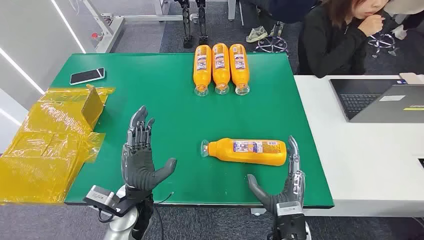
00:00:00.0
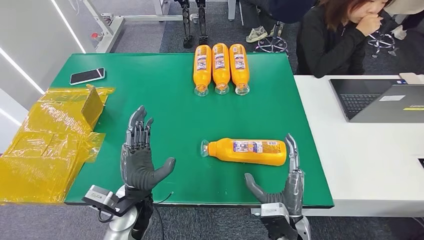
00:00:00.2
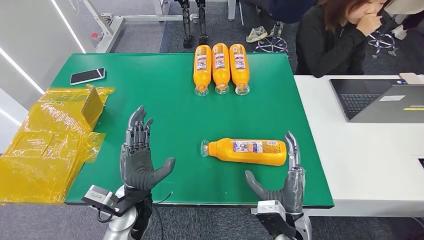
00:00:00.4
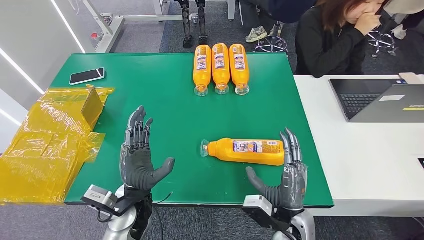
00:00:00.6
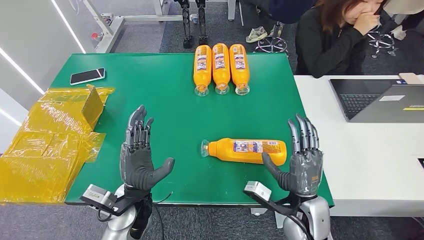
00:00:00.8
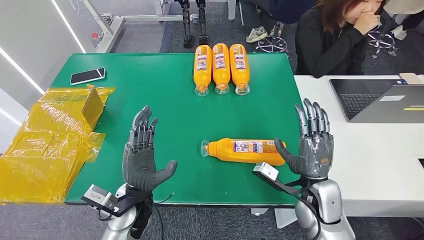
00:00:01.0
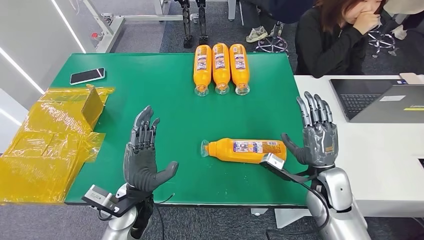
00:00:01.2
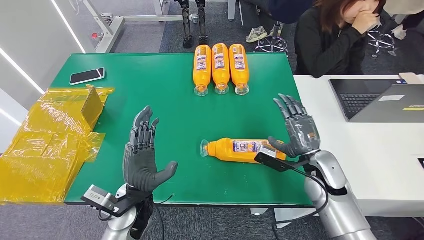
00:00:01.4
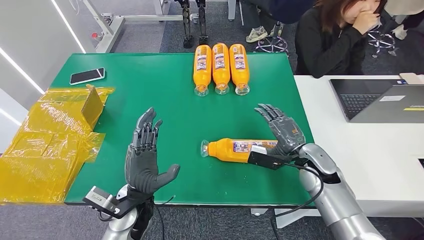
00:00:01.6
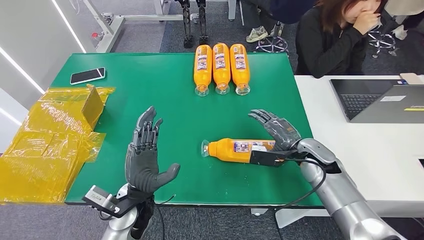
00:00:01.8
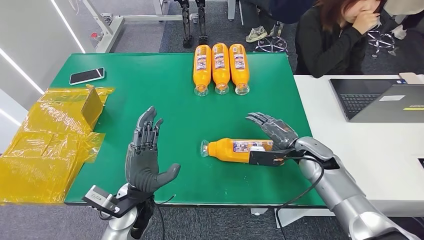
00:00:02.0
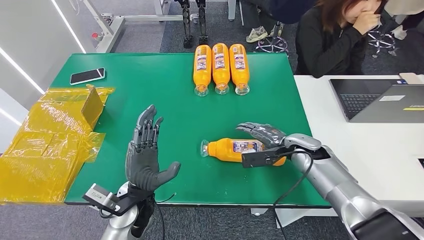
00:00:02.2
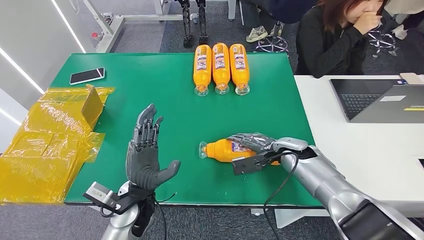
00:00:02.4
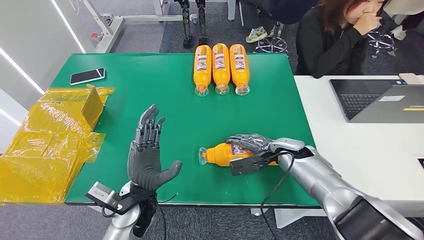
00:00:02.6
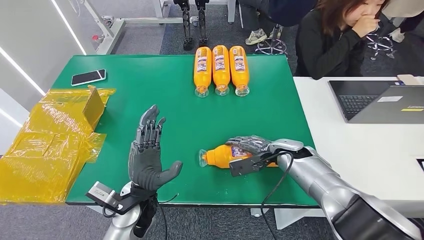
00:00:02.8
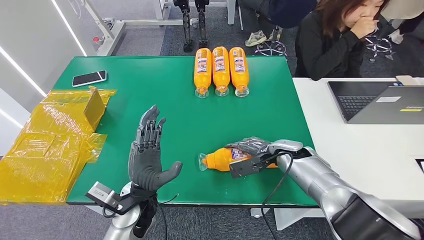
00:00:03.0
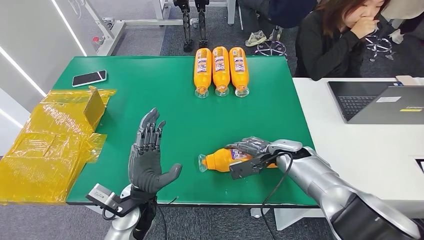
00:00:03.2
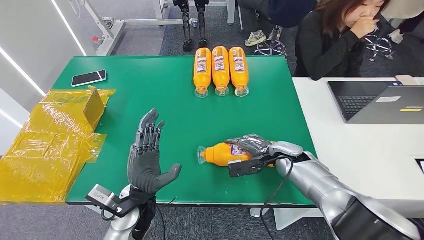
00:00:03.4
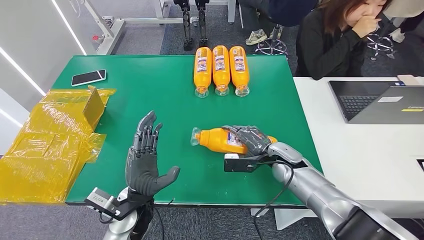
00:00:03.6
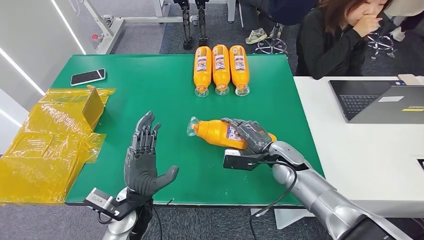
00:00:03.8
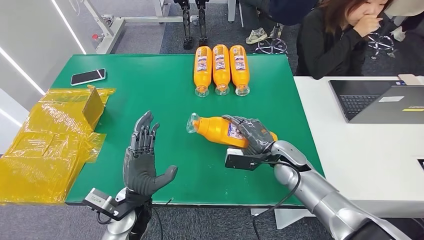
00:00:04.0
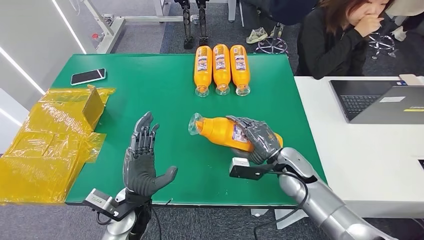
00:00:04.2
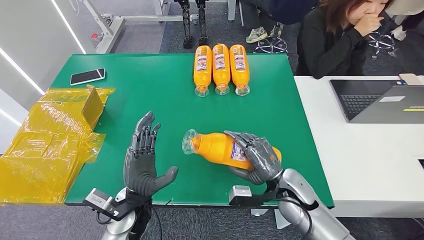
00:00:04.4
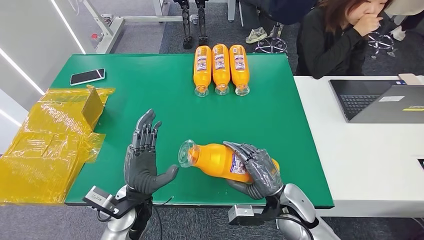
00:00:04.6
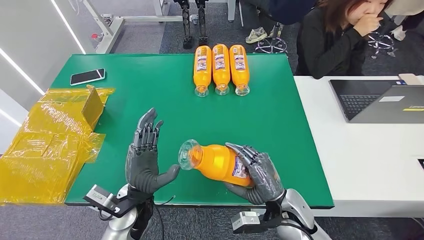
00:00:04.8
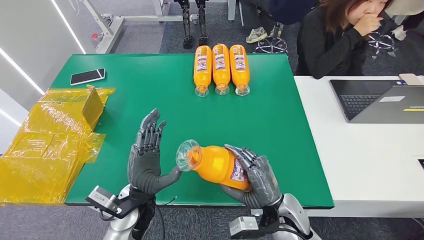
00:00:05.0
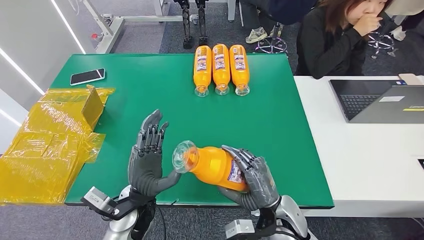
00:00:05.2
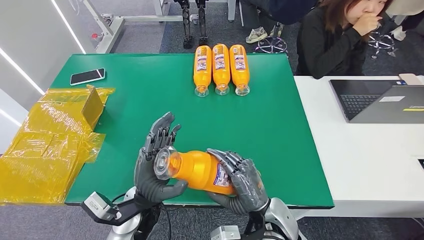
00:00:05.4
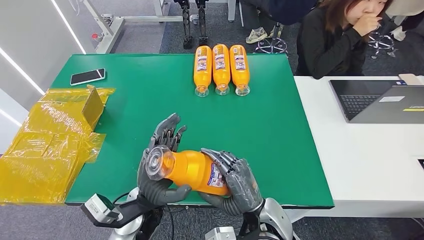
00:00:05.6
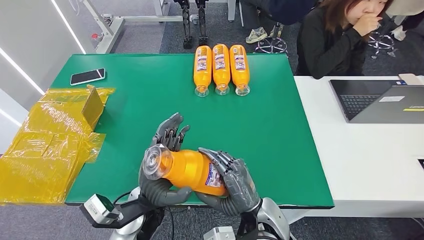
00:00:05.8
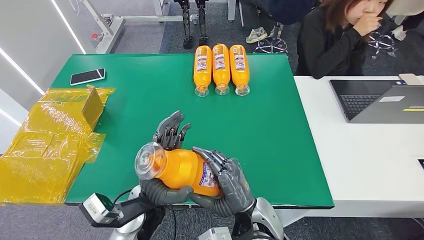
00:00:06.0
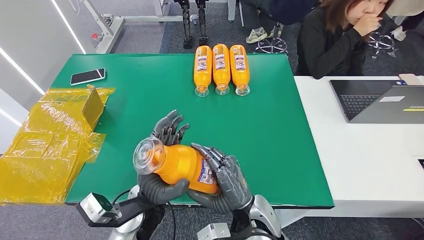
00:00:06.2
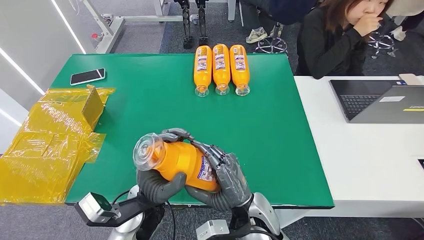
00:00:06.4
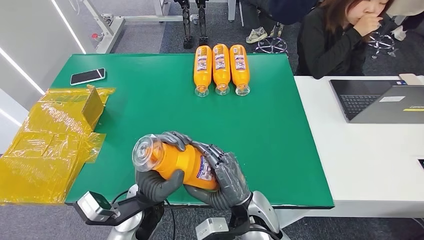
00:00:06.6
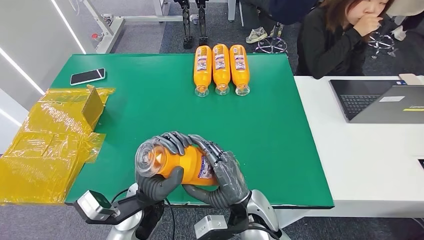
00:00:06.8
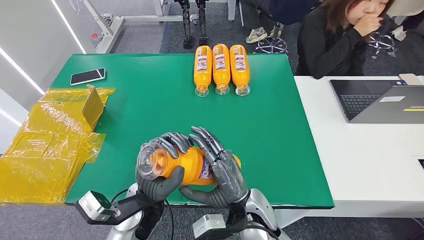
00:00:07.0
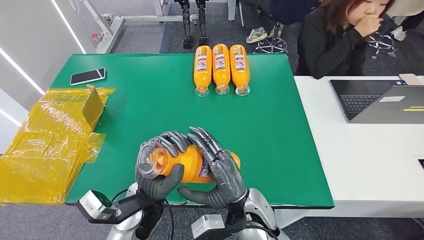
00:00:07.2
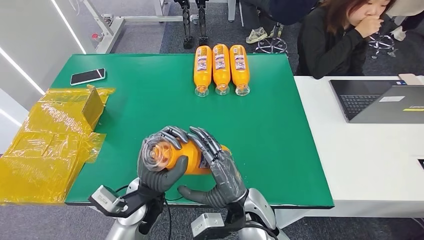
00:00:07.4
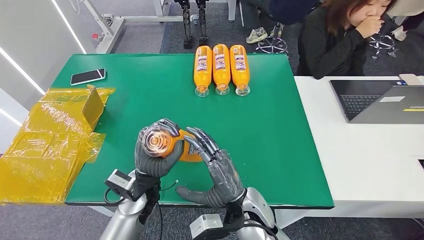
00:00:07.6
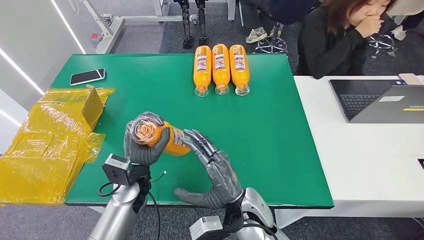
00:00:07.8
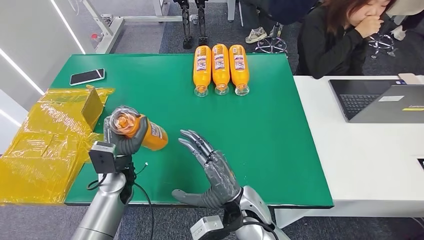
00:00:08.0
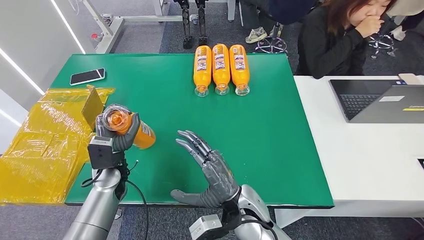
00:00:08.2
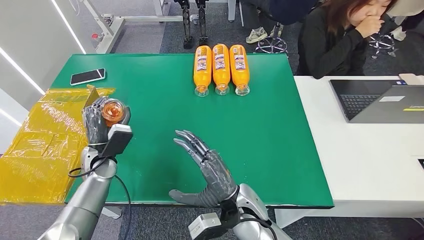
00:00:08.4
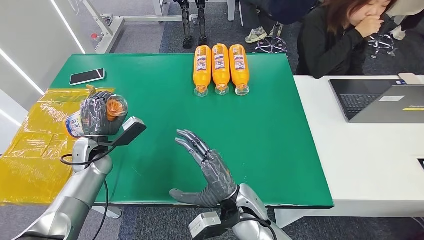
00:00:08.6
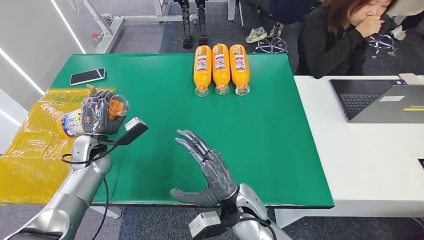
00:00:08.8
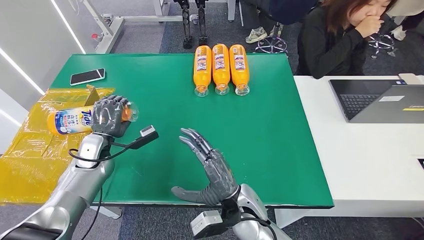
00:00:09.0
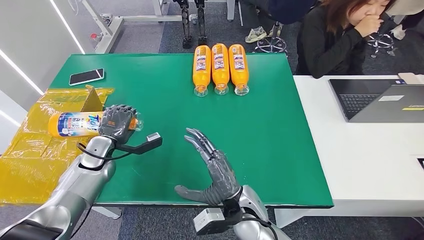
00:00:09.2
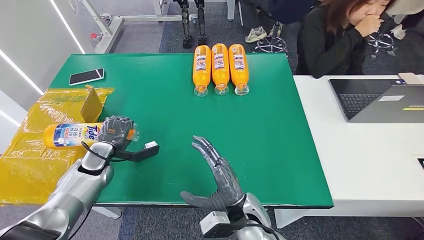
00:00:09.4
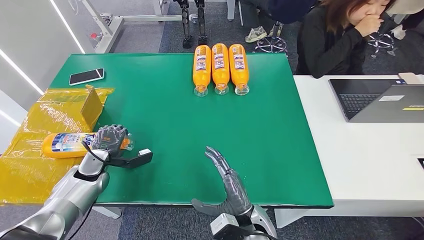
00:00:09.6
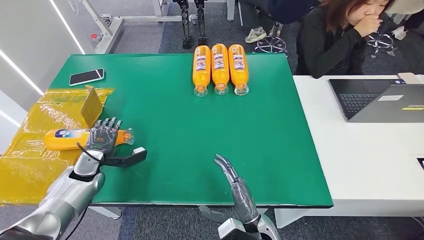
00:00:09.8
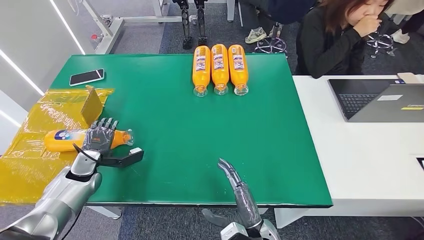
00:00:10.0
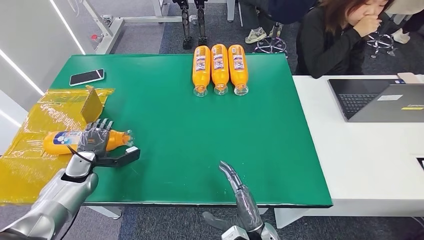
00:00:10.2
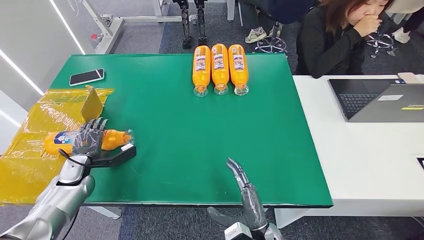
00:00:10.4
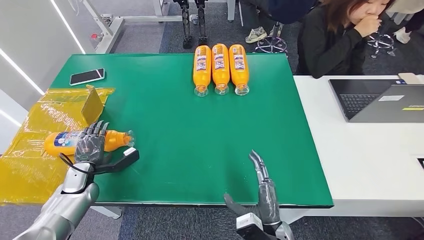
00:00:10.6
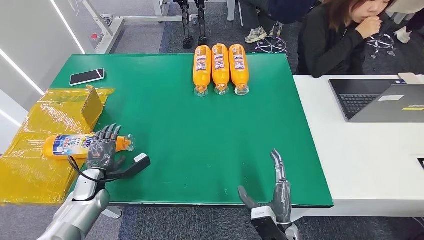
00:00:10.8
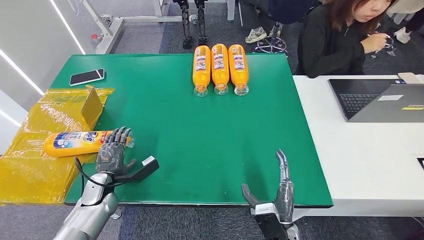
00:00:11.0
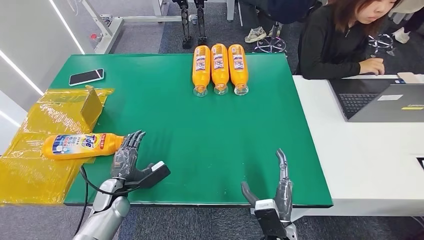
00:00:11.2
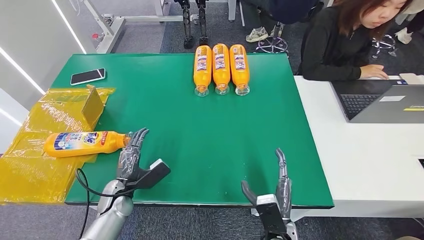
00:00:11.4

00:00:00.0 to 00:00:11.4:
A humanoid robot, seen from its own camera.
Step, 00:00:00.0 to 00:00:04.4: Pick up the bottle from the table.
Step, 00:00:04.6 to 00:00:11.4: Turn the bottle to the front side.
00:00:01.4 to 00:00:02.8: The right hand travels forward by about 5 cm.
00:00:02.8 to 00:00:04.2: The right hand shifts by approximately 5 cm.
00:00:04.2 to 00:00:05.6: The right hand is displaced backward and to the left by roughly 15 cm.
00:00:05.6 to 00:00:07.2: The hands stay close to where they were, moving slightly.
00:00:07.2 to 00:00:08.6: The left hand goes some 25 cm to the left and forward.
00:00:08.6 to 00:00:10.0: The left hand shifts about 10 cm to the left; the right hand travels downward, backward and to the right by about 10 cm.
00:00:10.0 to 00:00:11.4: The left hand is displaced to the right and backward by some 15 cm.
